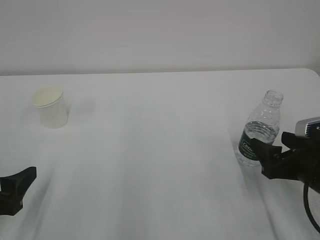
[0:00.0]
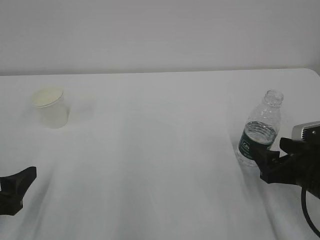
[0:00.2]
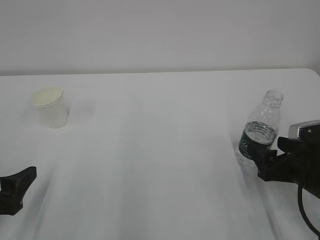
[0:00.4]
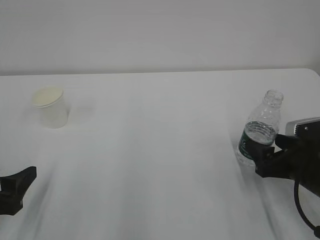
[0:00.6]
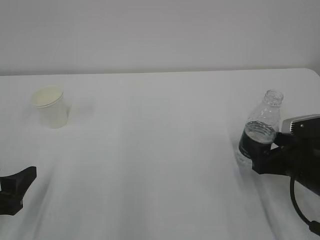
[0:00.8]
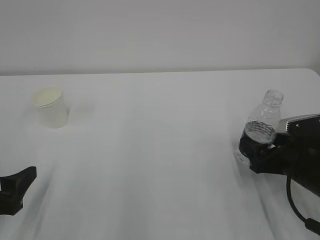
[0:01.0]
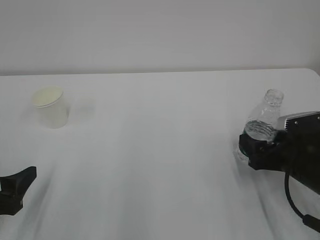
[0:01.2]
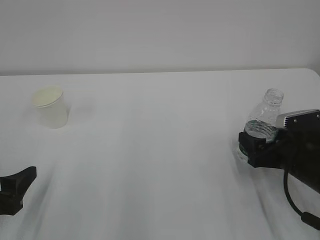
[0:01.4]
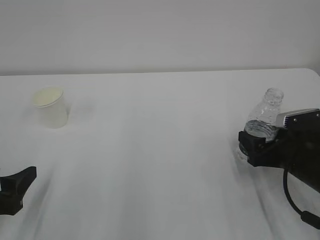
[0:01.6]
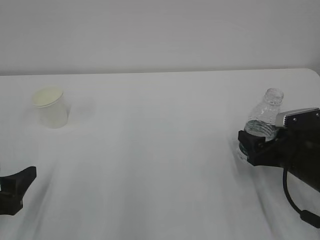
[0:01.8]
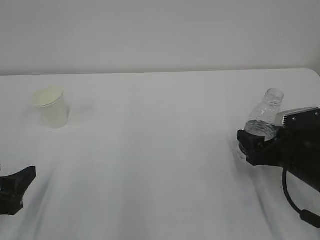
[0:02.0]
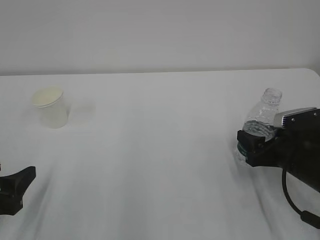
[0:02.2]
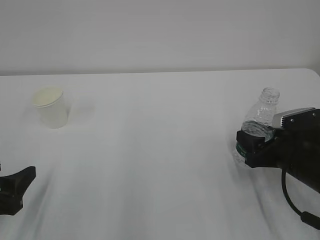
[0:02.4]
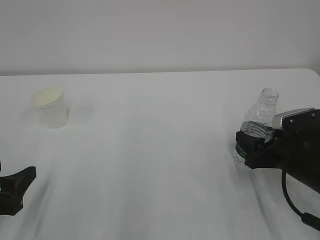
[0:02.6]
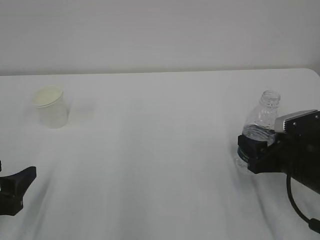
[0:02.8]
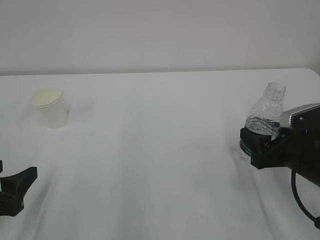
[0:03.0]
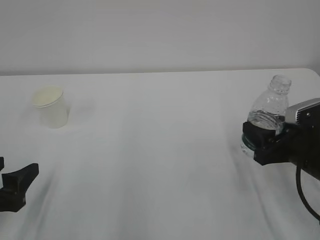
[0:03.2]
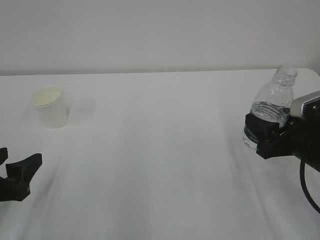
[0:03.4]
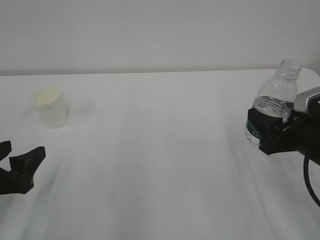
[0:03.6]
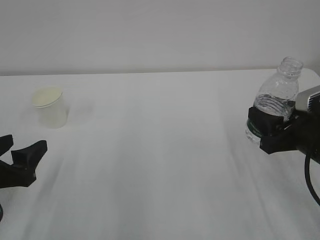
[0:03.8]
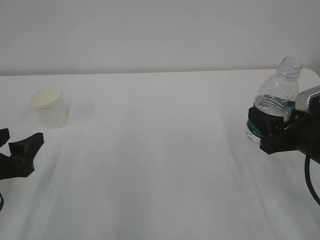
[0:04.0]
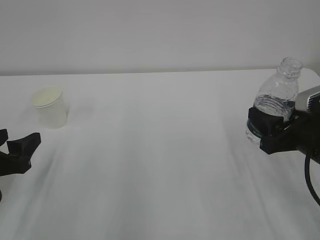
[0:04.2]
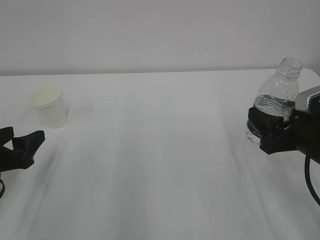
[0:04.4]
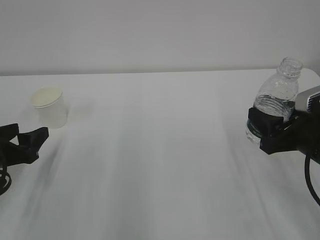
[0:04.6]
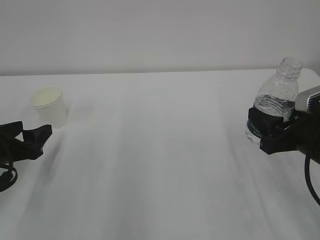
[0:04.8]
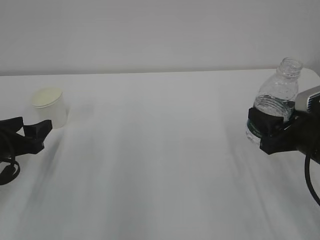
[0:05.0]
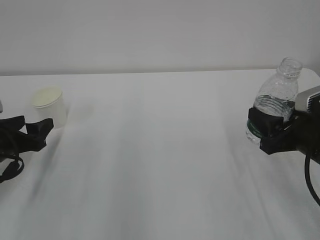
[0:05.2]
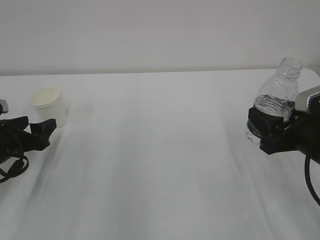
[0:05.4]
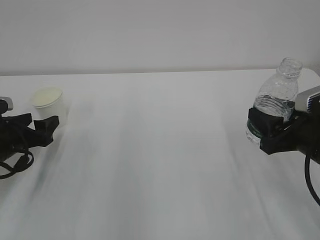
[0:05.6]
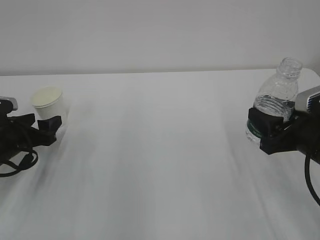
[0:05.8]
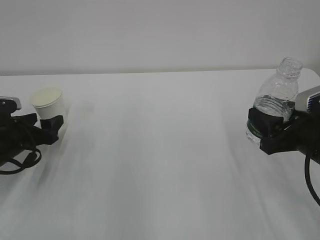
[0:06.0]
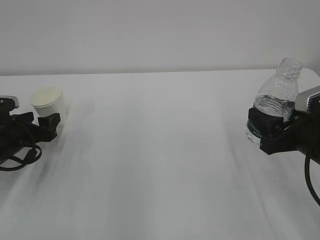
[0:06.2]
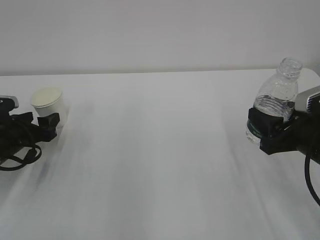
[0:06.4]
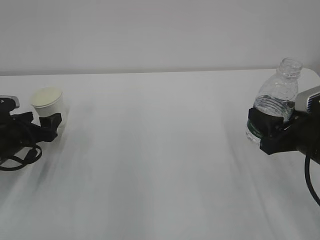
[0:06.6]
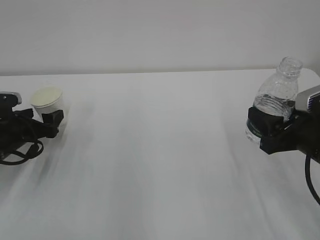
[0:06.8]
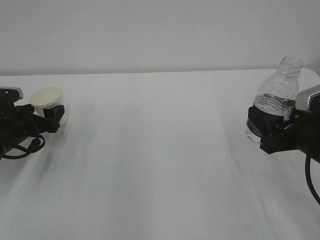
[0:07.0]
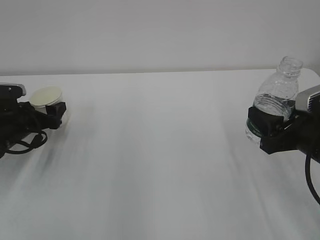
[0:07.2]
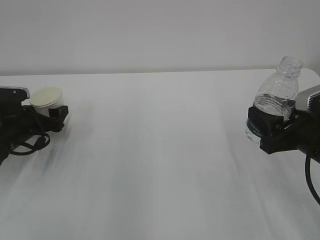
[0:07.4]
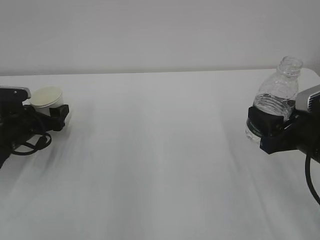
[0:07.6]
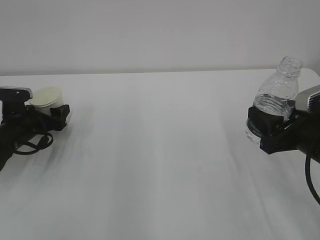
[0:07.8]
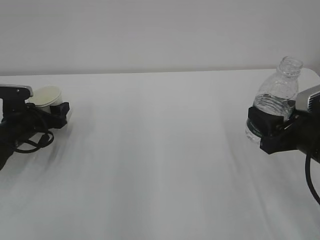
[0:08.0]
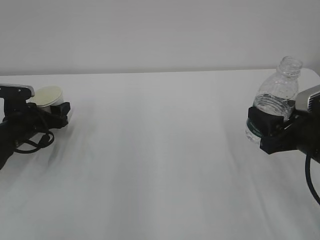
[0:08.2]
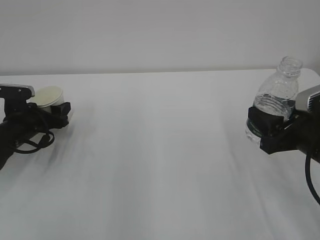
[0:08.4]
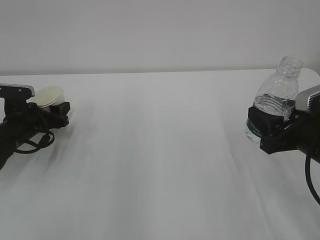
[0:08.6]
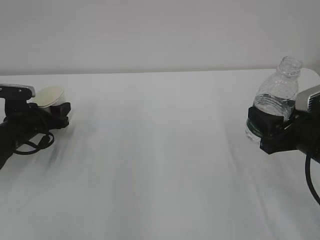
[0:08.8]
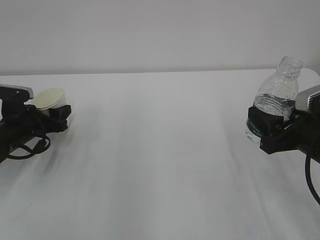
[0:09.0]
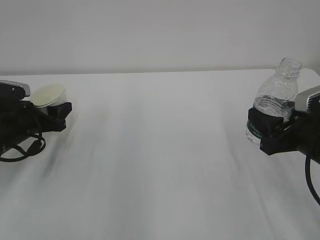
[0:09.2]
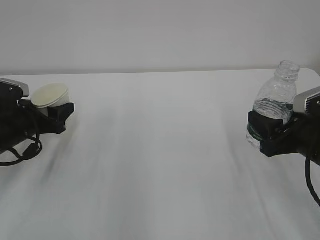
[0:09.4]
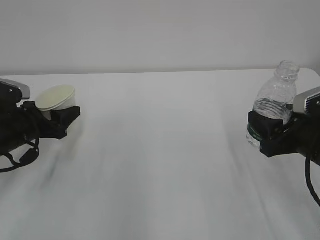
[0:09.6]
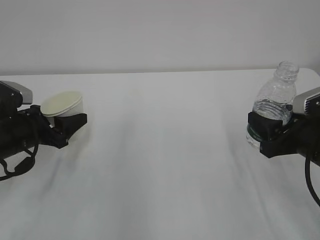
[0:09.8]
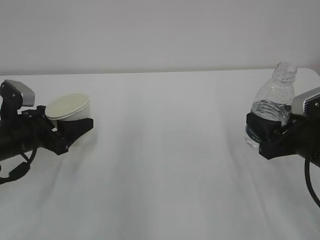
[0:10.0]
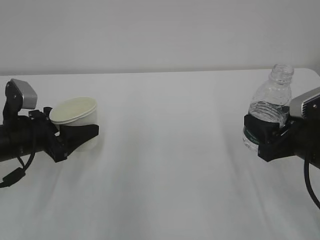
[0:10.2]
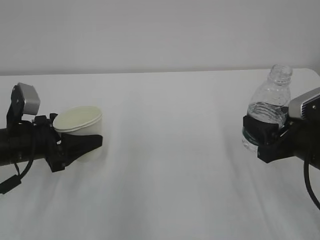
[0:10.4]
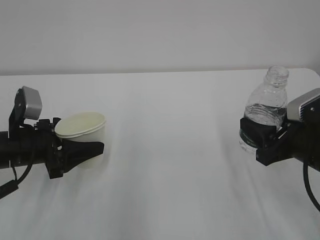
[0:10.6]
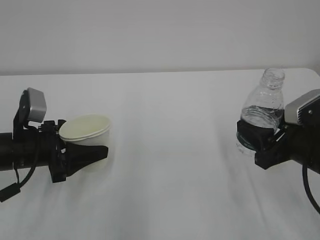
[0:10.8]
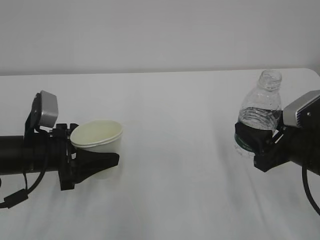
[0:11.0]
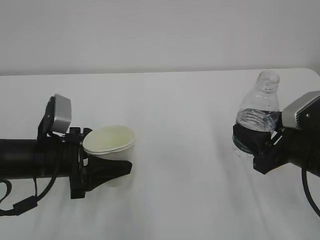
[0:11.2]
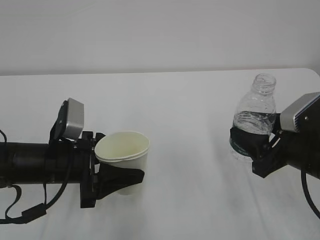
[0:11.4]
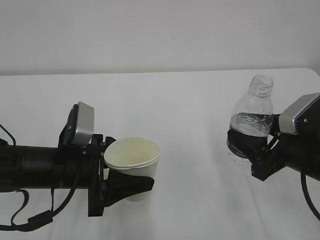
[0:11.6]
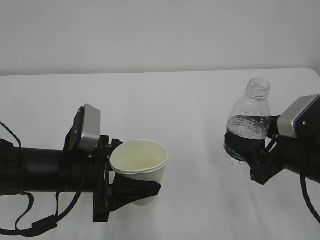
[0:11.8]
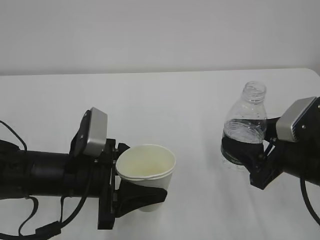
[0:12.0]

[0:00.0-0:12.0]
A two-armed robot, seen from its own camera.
0:00.0 to 0:01.6: The grippers move only a little.
0:01.6 to 0:03.0: The right gripper closes.
0:03.0 to 0:04.4: The left gripper is displaced forward by about 5 cm.
0:04.4 to 0:06.0: The left gripper moves forward, about 10 cm.
0:06.0 to 0:07.6: The grippers make only small movements.
0:07.6 to 0:09.0: The left gripper closes up.
0:09.0 to 0:10.4: The left gripper heads backward and upward, covering roughly 10 cm.
0:10.4 to 0:12.0: The left gripper goes approximately 10 cm to the right and backward.

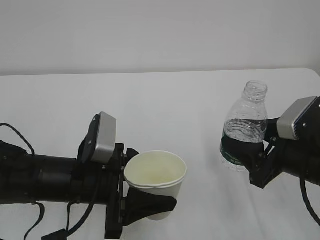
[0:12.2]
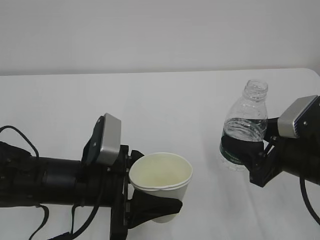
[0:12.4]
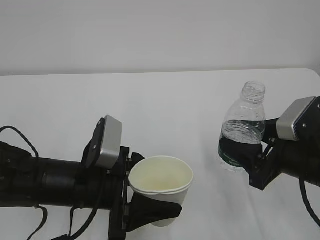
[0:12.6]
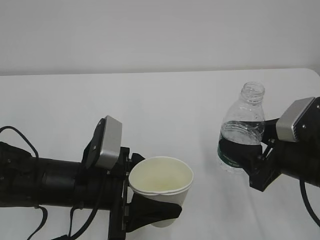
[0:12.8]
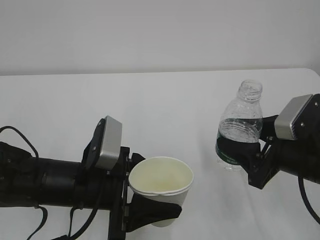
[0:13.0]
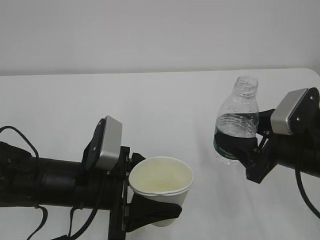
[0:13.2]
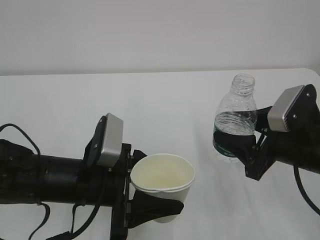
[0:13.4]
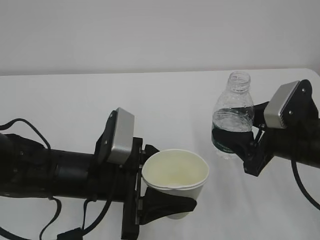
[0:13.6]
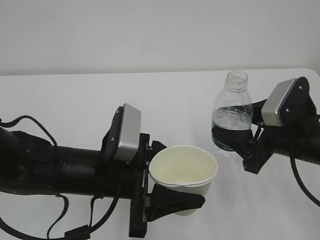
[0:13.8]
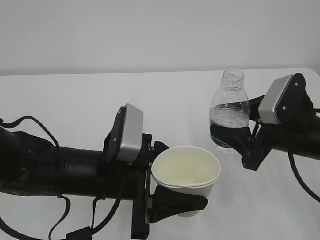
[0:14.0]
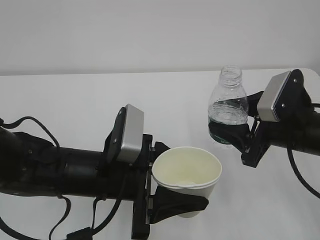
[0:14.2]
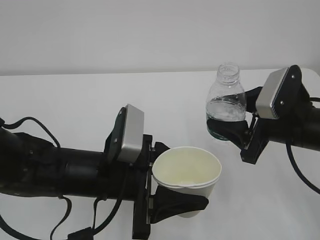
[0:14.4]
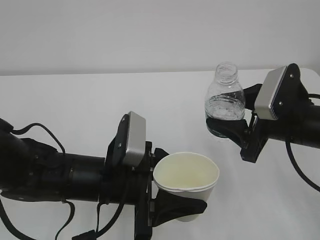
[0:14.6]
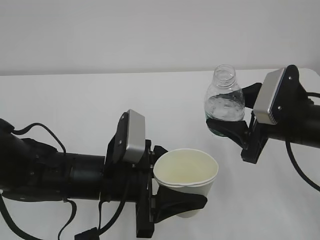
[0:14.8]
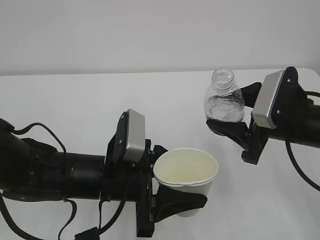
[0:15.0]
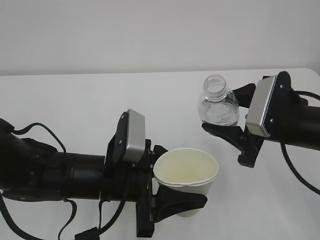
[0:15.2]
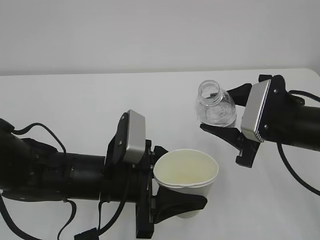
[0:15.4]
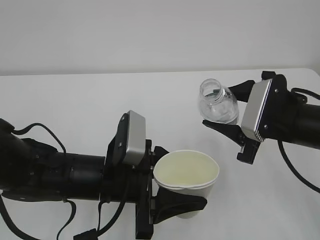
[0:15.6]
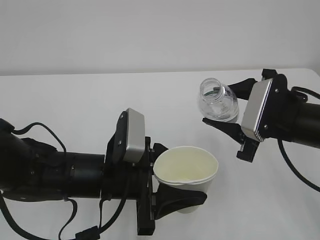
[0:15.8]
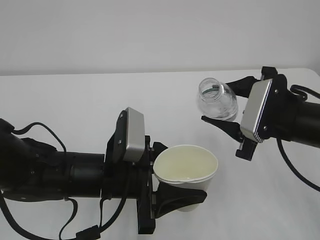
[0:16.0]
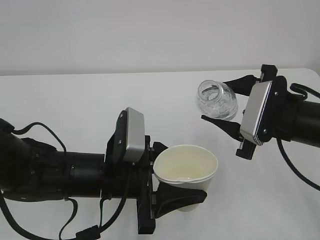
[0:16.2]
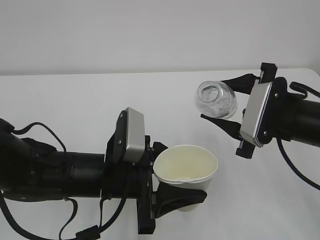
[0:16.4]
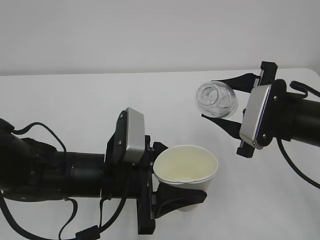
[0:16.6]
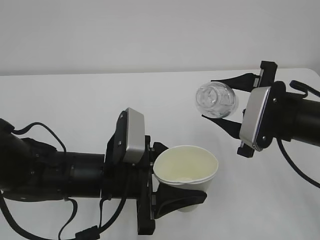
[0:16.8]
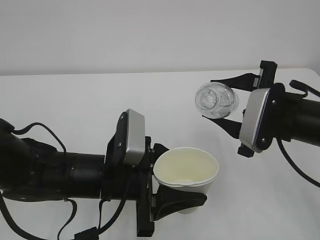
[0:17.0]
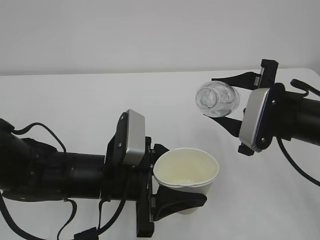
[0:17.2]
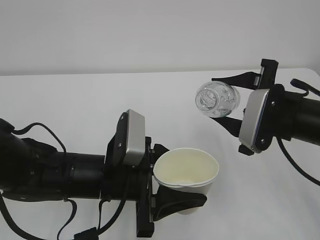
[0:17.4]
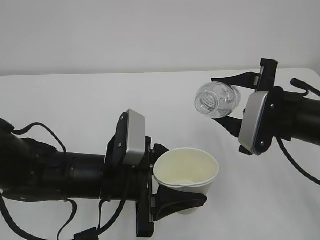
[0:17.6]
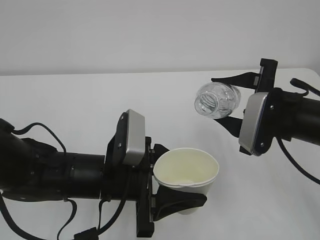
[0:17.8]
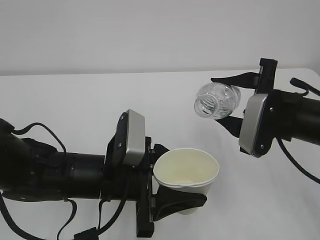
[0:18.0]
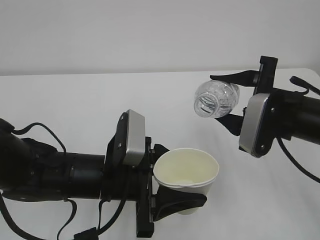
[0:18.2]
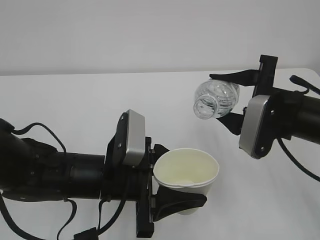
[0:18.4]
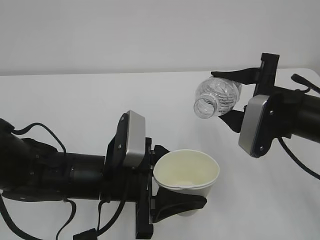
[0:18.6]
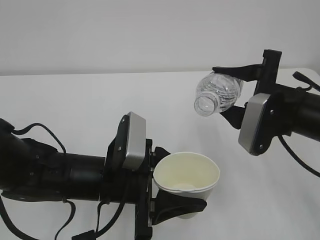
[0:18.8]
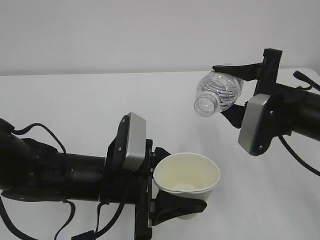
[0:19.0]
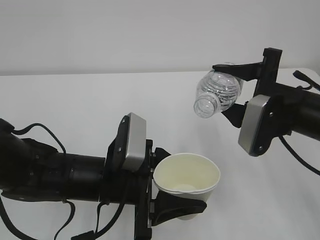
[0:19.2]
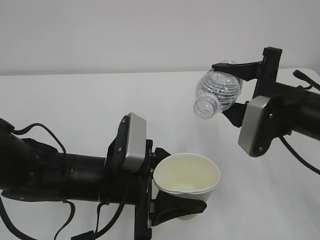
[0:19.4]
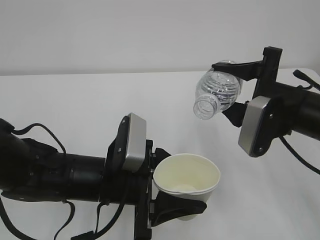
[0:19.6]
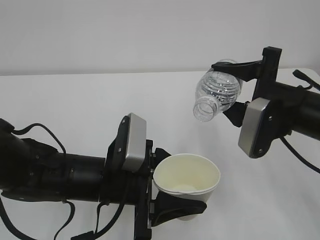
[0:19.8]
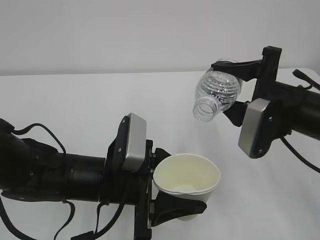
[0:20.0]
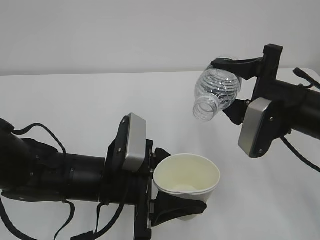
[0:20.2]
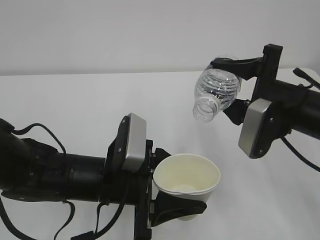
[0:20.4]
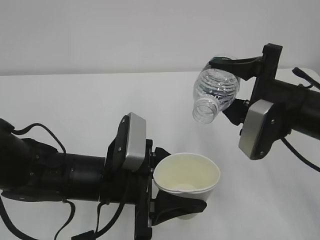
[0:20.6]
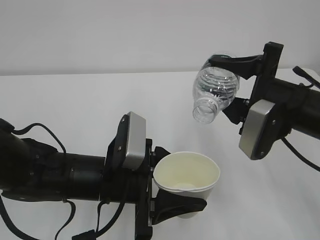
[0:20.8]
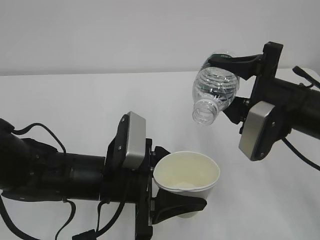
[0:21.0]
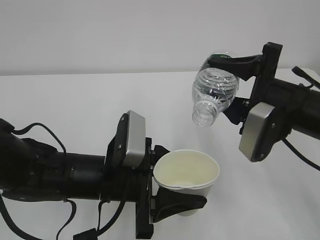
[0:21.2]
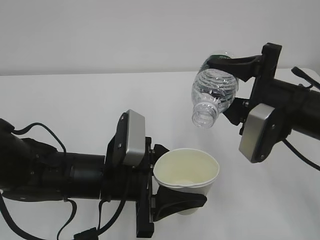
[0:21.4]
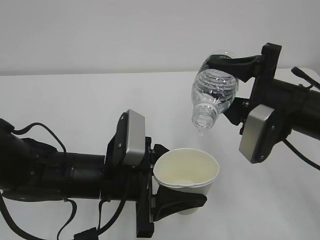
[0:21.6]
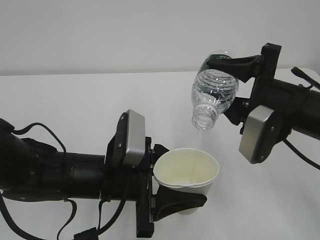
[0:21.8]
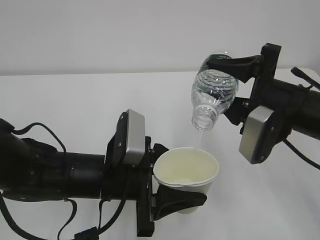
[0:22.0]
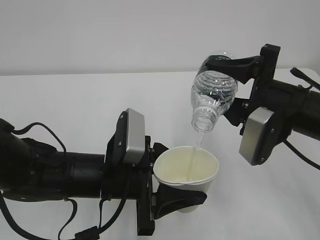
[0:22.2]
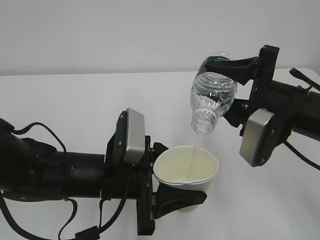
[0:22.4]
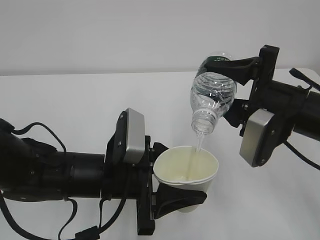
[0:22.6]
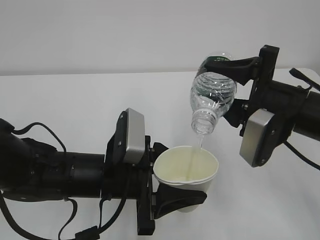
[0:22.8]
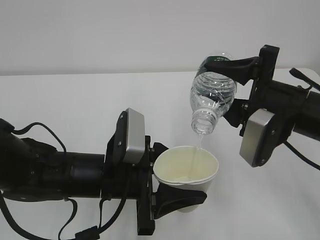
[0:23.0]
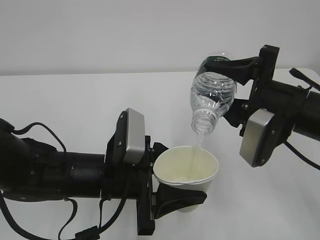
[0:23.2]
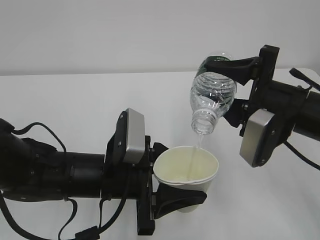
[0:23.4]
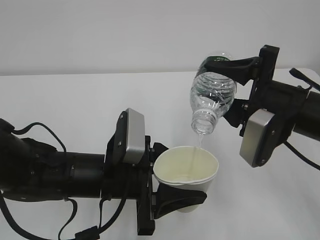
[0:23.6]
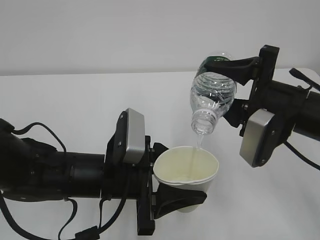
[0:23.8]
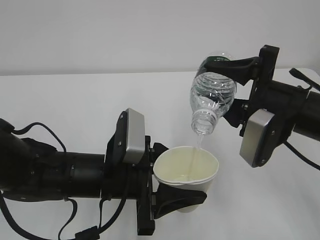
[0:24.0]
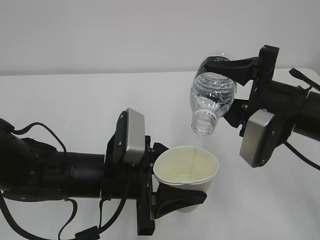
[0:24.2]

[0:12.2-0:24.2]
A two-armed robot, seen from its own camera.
0:15.2 to 0:16.6: The grippers make only small movements.
0:16.6 to 0:18.2: There are only small adjustments of the grippers.
0:18.2 to 0:19.8: The grippers make only small movements.
0:19.8 to 0:21.2: The grippers stay close to where they were, moving slightly.
0:21.2 to 0:24.2: Both grippers stay about where they are.
